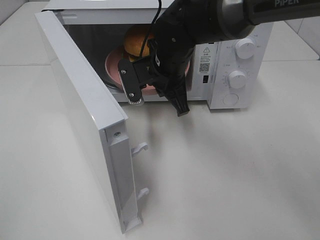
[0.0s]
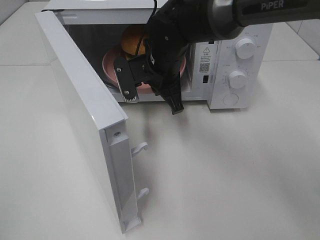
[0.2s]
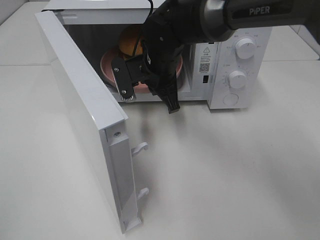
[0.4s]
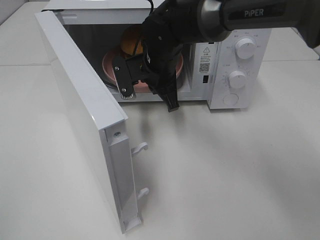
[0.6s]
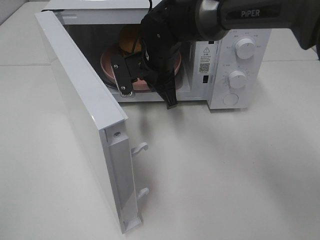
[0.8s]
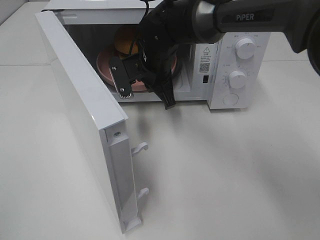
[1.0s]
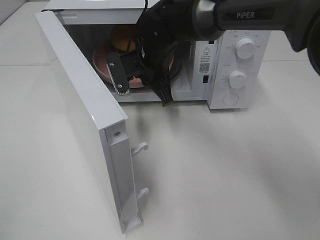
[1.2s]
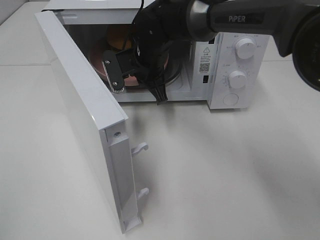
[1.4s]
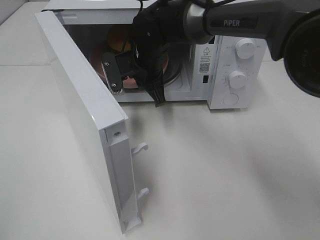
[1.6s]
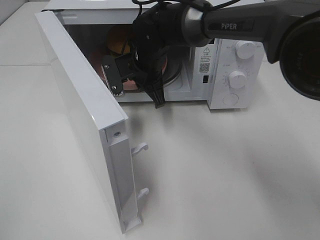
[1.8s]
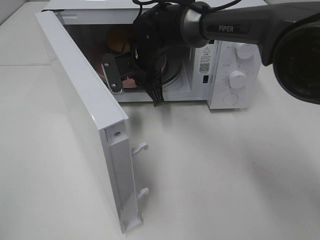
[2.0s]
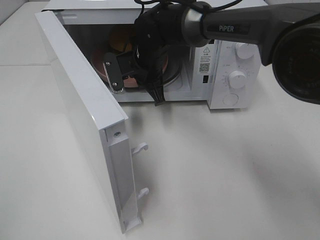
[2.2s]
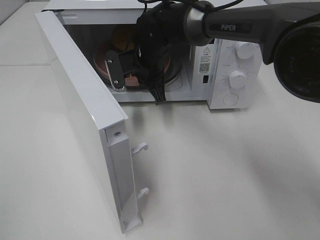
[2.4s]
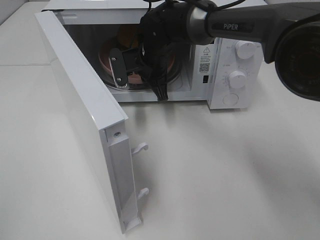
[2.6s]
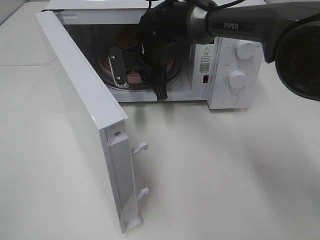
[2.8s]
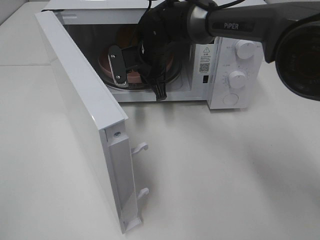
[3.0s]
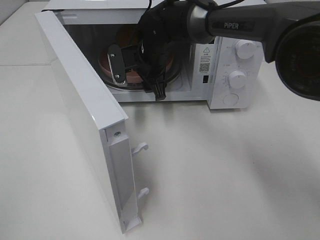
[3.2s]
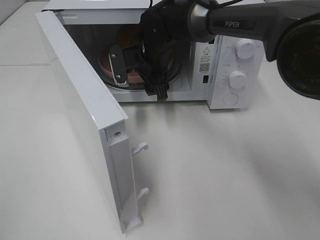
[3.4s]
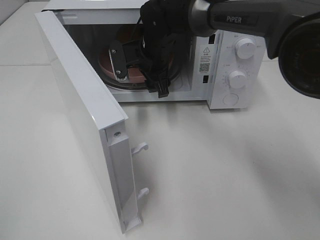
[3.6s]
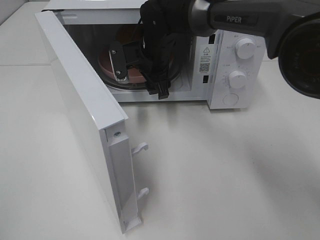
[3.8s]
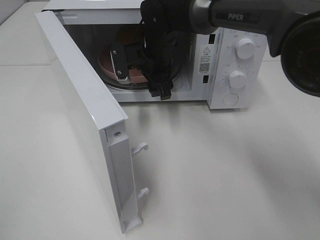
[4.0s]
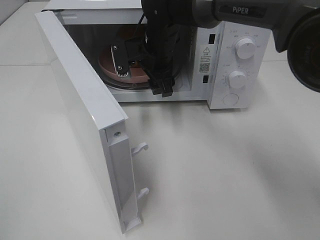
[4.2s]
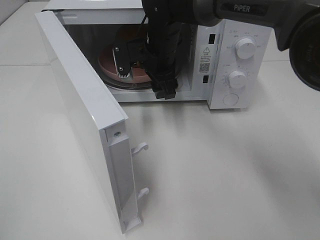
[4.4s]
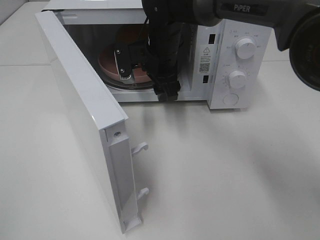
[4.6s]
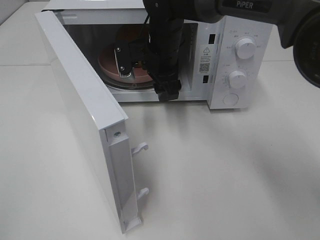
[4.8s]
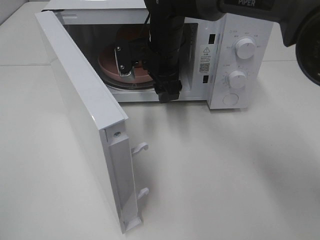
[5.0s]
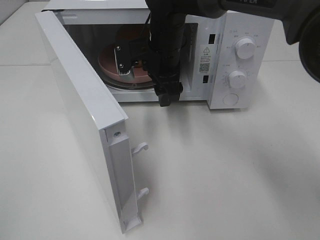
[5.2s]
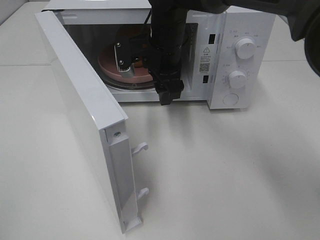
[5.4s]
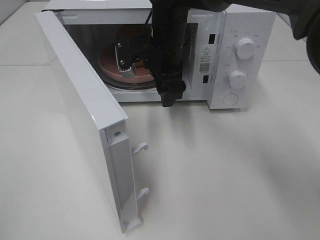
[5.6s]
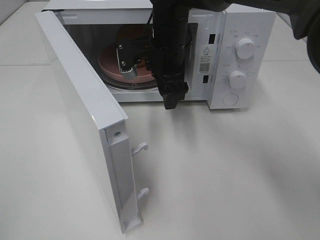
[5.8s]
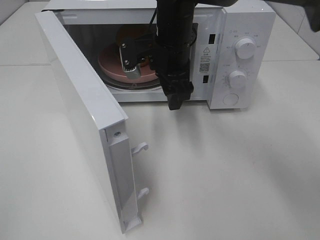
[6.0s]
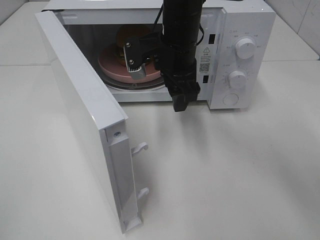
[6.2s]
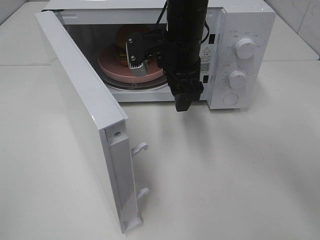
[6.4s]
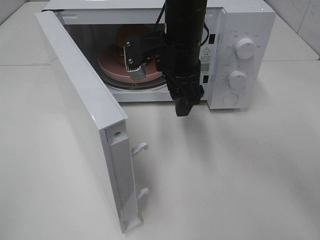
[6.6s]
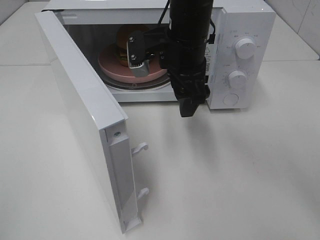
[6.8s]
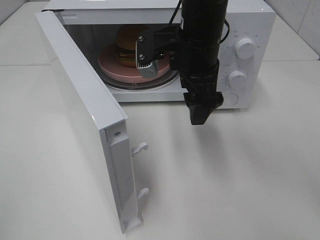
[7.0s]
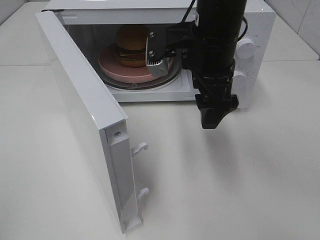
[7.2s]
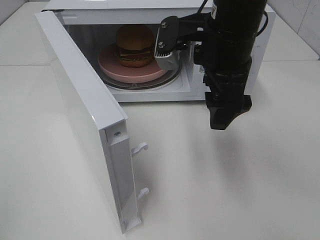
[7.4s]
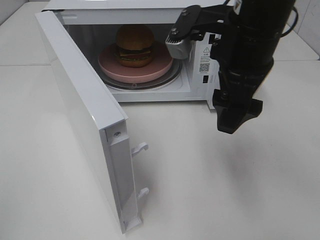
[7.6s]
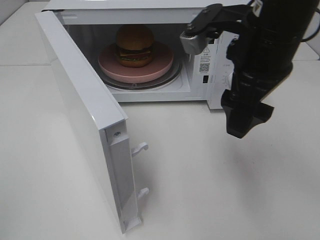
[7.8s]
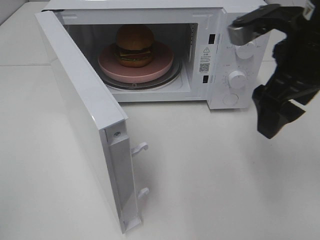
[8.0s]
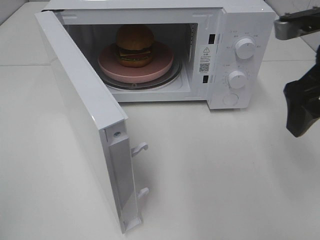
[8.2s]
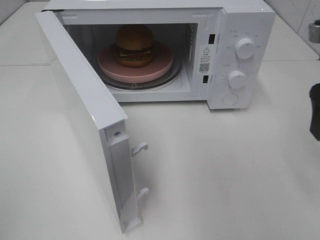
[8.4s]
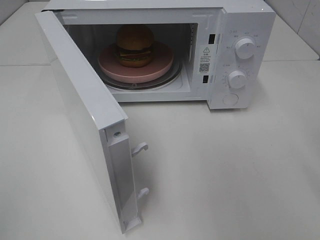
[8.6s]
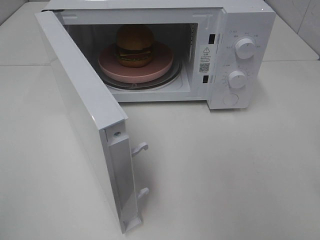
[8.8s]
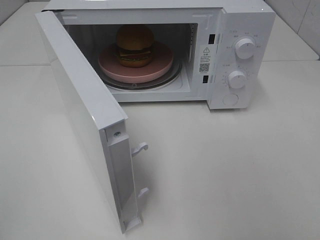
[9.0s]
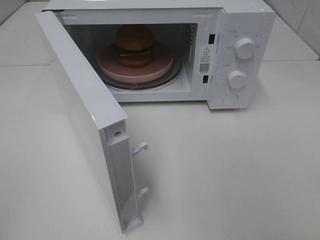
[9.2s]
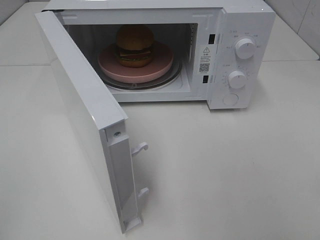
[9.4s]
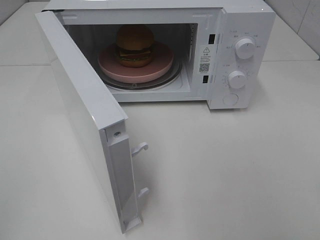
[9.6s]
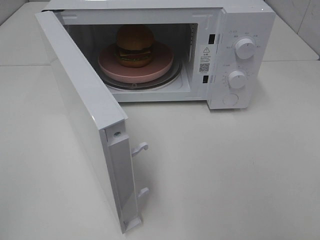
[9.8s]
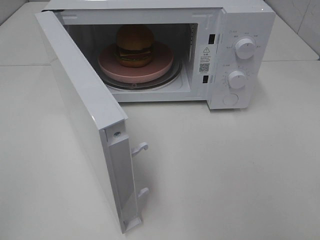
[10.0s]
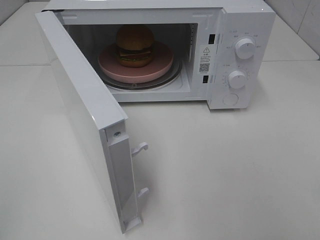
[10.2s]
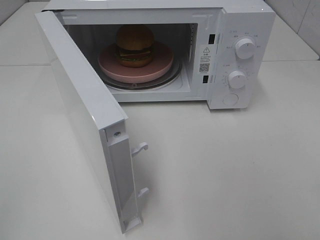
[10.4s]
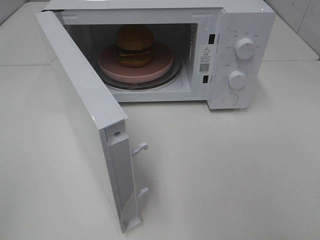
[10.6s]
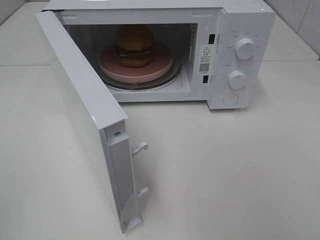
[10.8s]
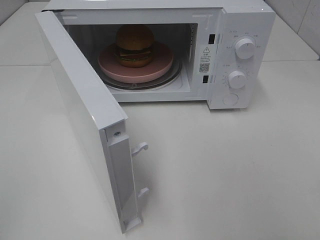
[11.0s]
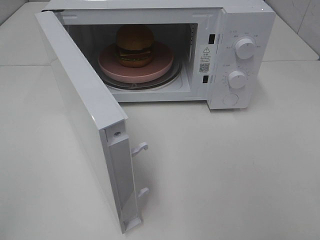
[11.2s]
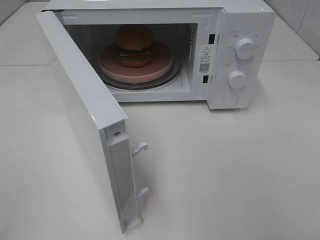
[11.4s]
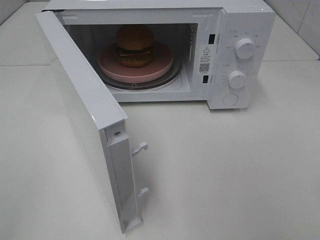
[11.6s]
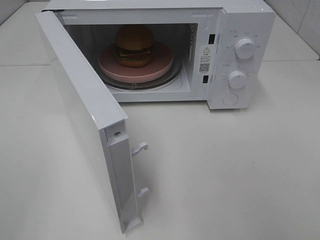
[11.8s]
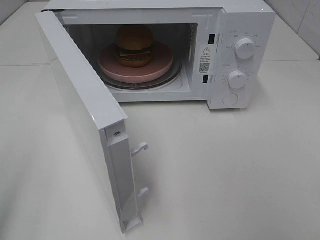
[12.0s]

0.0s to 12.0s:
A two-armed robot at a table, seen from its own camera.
Task of the whole recording: Heat the burger.
Step, 0.0s to 3.0s: Right hand: place the plate in the microwave.
0.0s to 1.6s: The right gripper moves roughly 5 cm.
1.6s to 4.4s: The grippers stay close to where they were, moving slightly.
4.4s to 6.0s: The right gripper moves some 5 cm.
6.0s to 7.6s: The right gripper heads backward, to the right and upward, covering approximately 15 cm.
7.6s to 9.0s: The right gripper moves to the right and backward, some 25 cm.

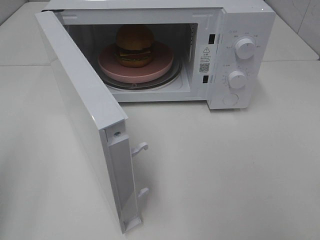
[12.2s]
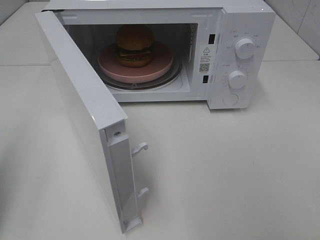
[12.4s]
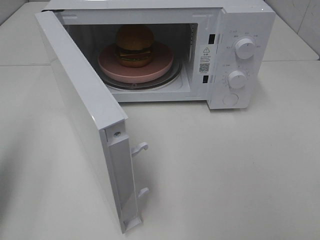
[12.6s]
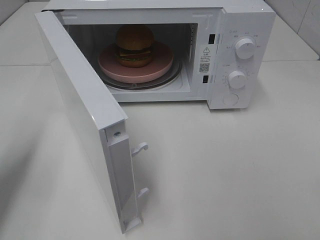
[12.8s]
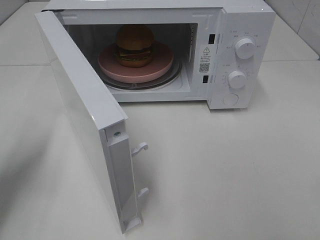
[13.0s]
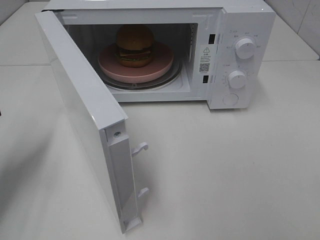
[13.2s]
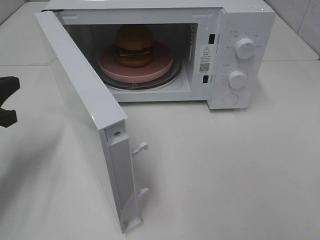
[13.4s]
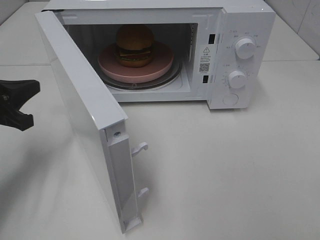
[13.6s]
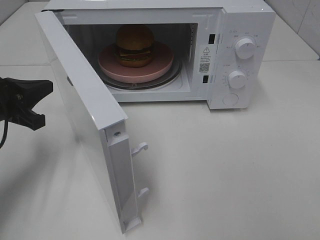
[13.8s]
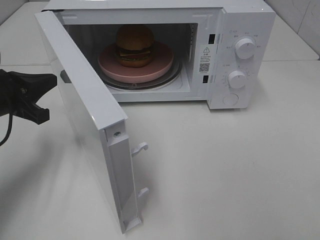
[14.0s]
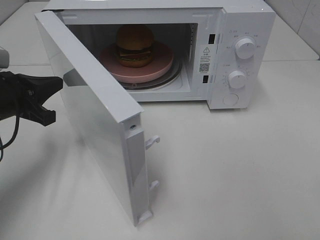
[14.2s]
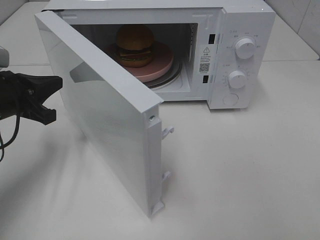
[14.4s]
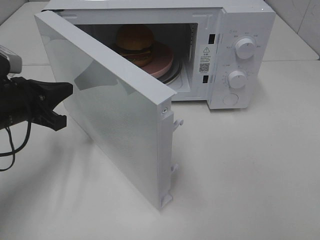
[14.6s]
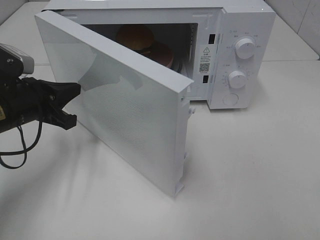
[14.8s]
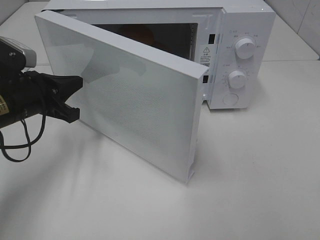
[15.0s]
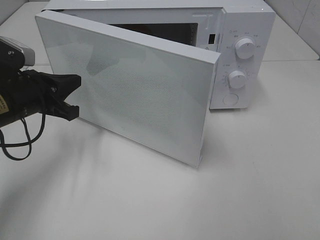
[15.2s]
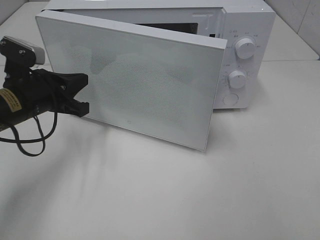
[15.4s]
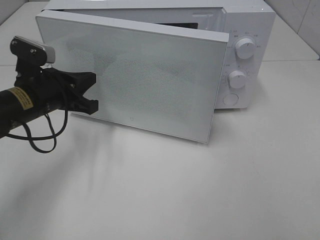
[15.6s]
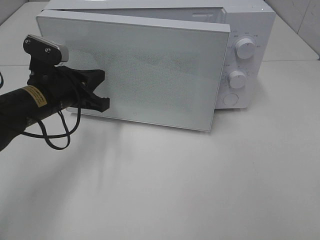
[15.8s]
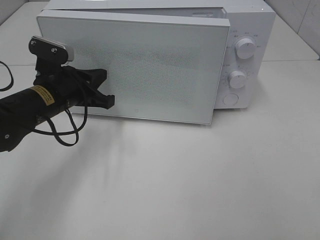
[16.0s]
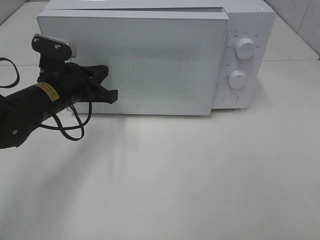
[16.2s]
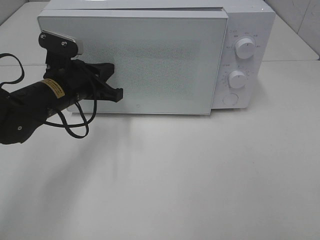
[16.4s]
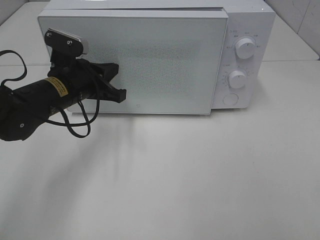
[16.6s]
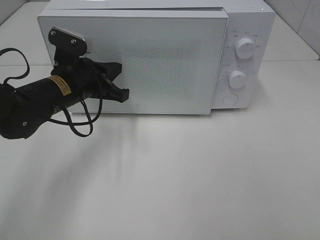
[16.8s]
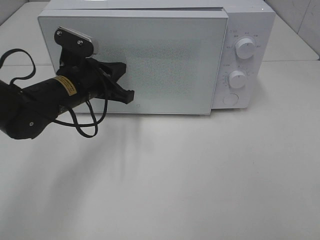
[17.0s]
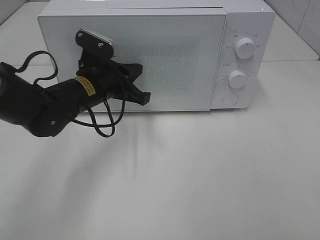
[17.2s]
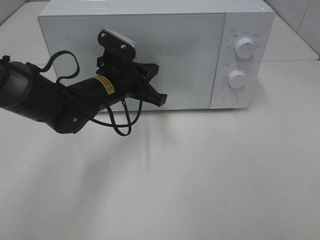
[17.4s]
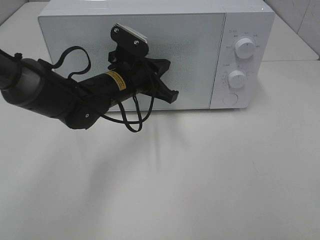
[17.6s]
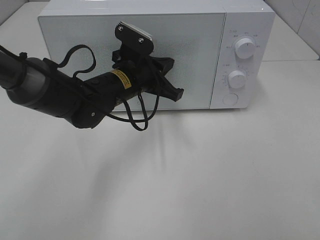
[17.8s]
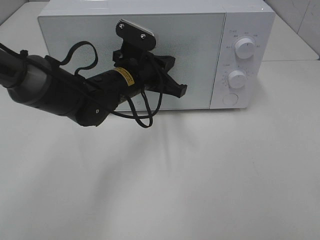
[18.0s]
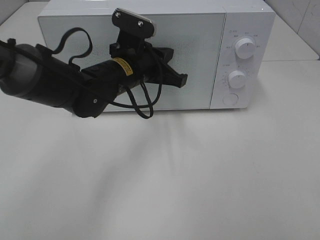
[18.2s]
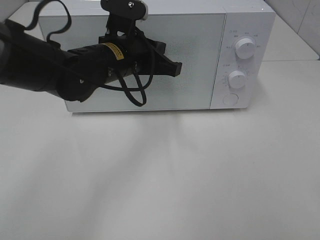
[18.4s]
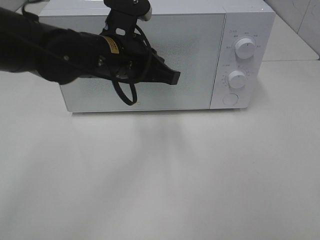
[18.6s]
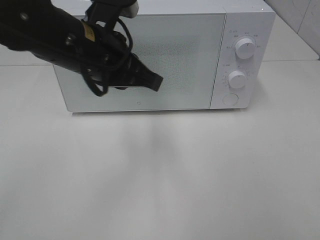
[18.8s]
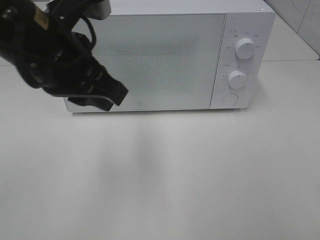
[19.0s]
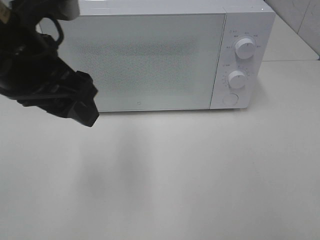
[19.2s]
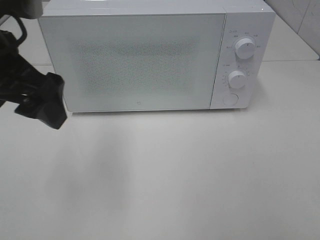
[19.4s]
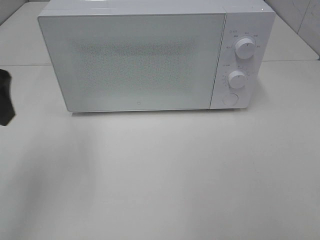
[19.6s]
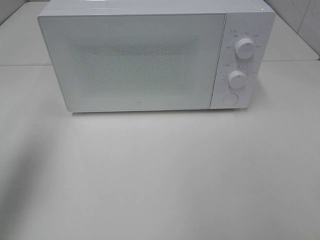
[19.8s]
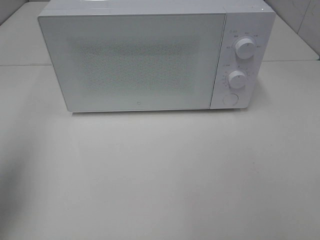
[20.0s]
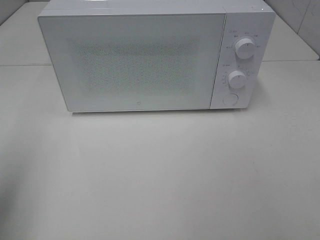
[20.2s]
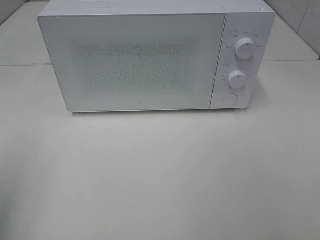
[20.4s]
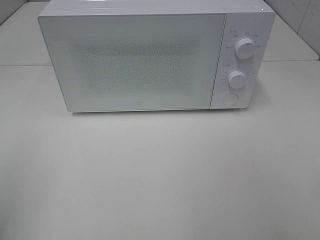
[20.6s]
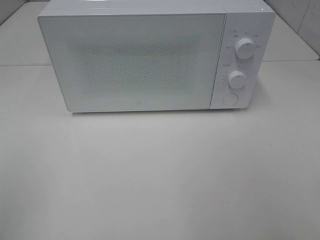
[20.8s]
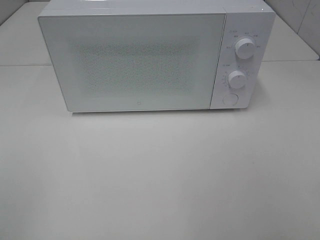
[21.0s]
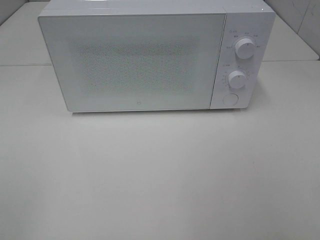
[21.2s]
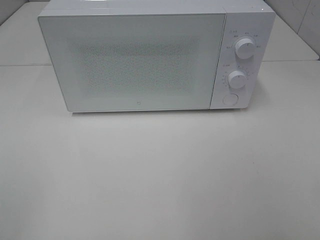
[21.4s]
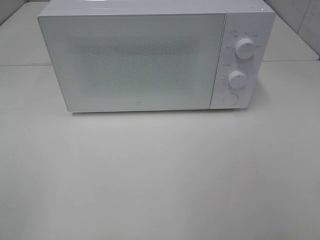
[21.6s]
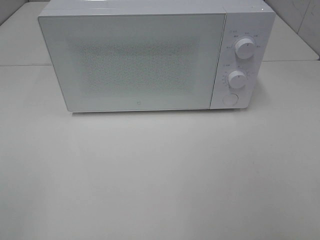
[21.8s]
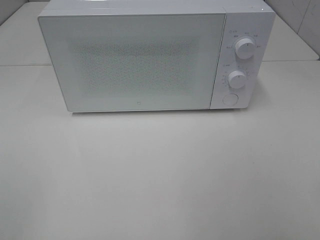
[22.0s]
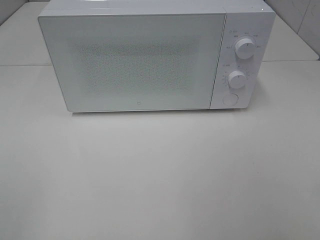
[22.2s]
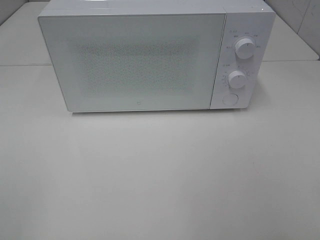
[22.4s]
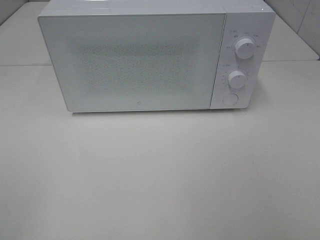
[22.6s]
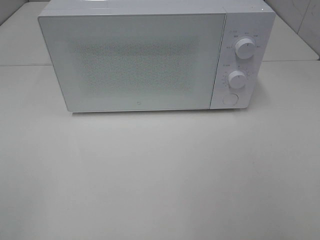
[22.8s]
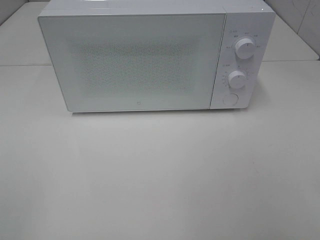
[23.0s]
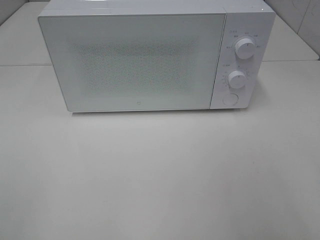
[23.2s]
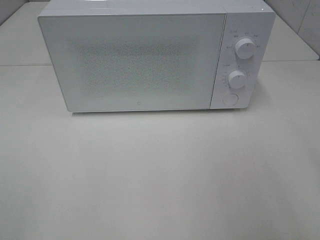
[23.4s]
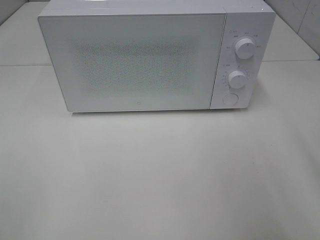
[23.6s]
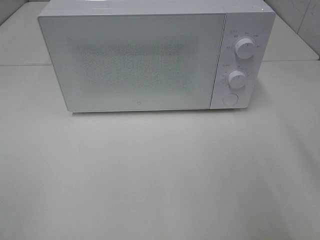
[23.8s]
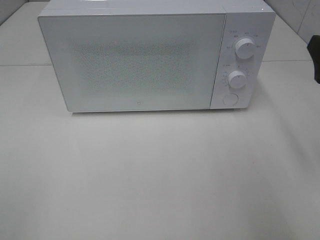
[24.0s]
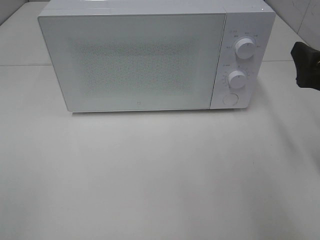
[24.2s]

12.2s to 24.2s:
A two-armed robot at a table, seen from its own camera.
Task of the whole recording: Heat the burger.
Step, 12.2s to 18.4s: Left hand: close the microwave door.
12.2s to 13.8s: The left gripper moves forward and downward, roughly 20 cm.
15.2s to 16.6s: The left gripper moves to the right, approximately 5 cm.
16.6s to 18.2s: The left gripper goes approximately 10 cm to the right.
18.2s to 19.8s: The left gripper moves to the left, upward and backward, about 30 cm, and opens.
19.8s to 21.2s: The left gripper moves backward, some 25 cm.
21.2s to 22.6s: Neither gripper changes place.
22.6s to 24.2s: The right gripper goes some 20 cm forward.
